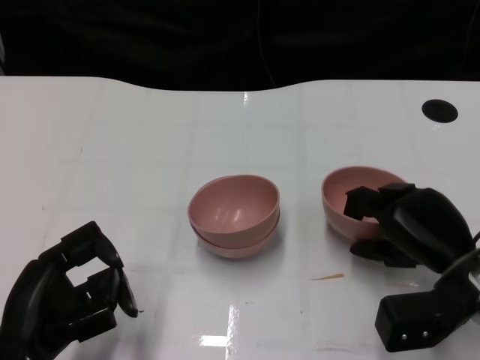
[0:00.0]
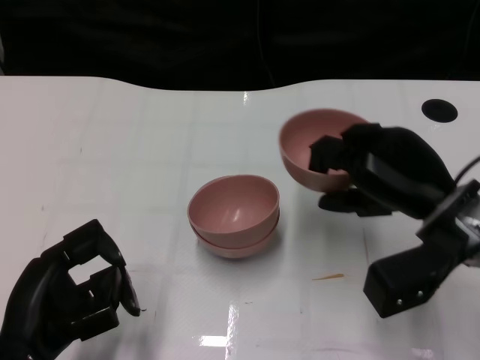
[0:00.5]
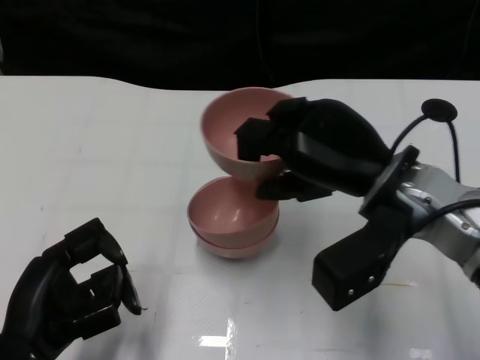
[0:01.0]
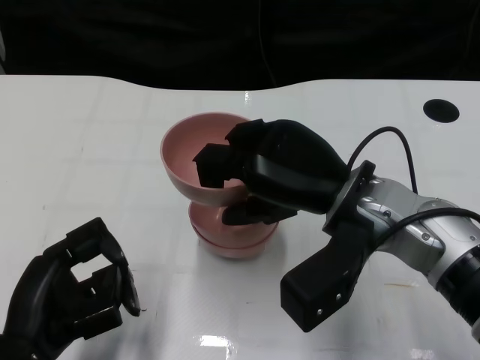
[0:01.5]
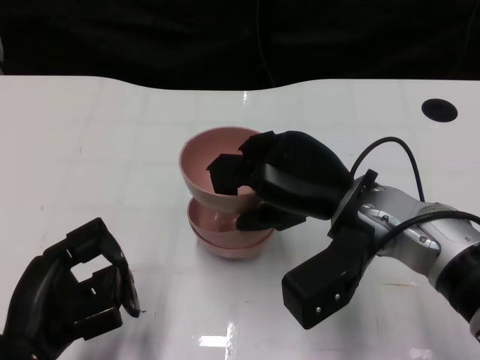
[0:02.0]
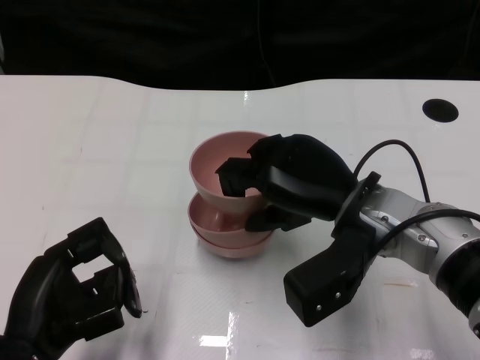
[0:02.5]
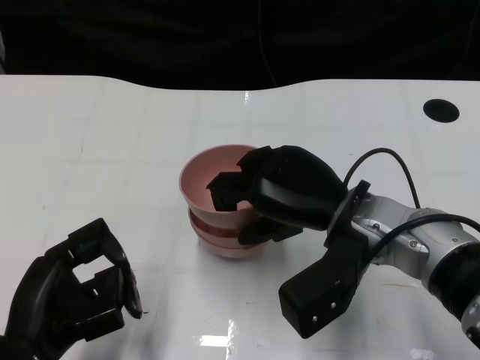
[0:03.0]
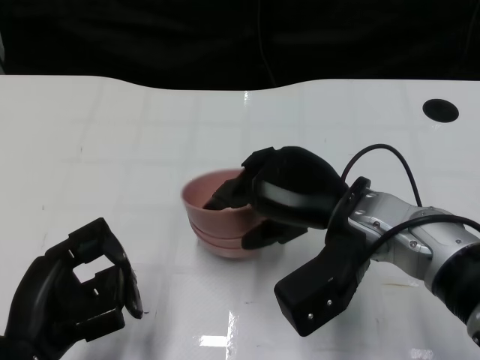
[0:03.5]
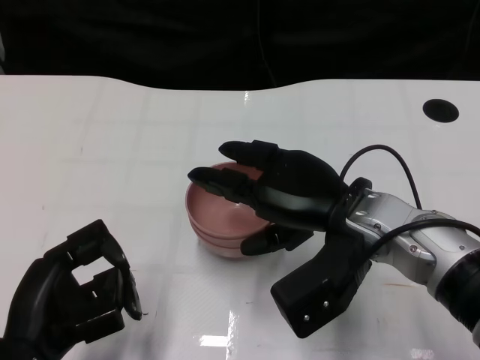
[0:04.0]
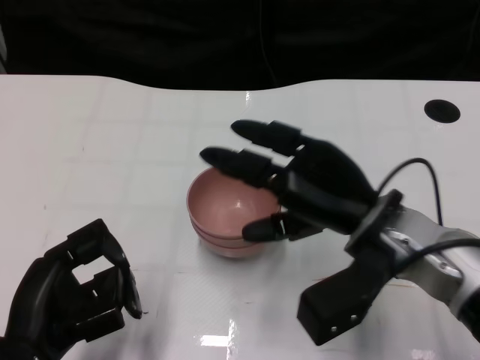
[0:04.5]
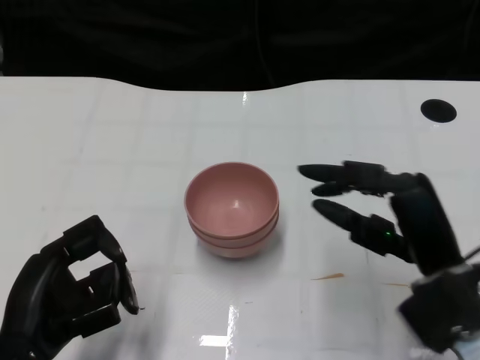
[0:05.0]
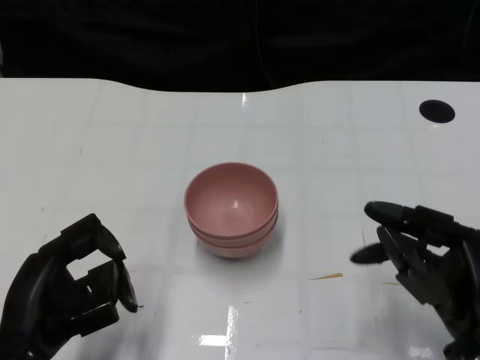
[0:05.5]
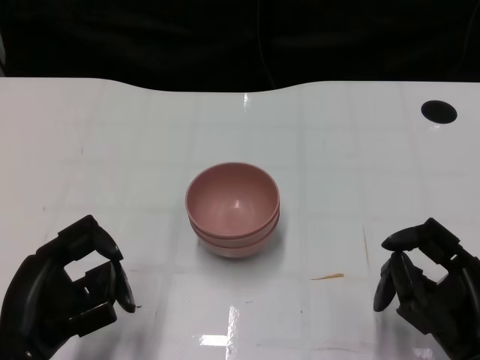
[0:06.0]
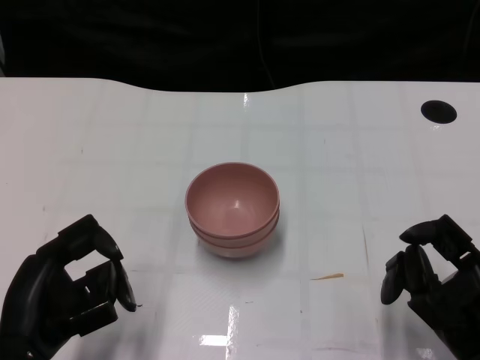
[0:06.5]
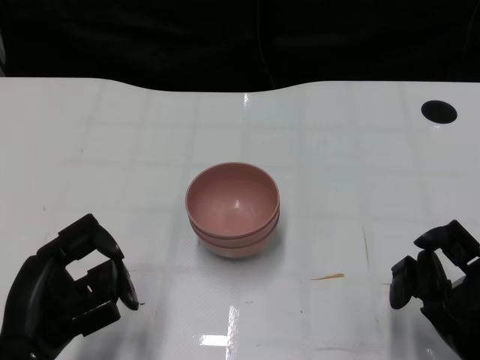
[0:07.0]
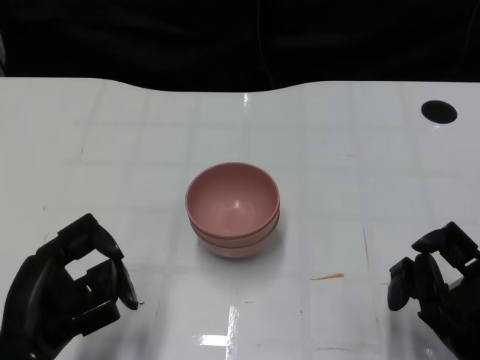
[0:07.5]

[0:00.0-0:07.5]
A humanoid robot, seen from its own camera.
Task of the whole recording: Pick up the bowl on one side of the table and place it on top of the middle bowl, then pick up the bowl on the other side of the table and place it on top of the middle bowls.
Step, 0:00.5 to 0:04.0: Place the bowl on the right onto the bowl in the middle with right gripper.
0:00.0 to 0:02.0: The right hand shifts some 15 cm to the left and upward.
0:02.0 to 0:04.0: There are only small adjustments of the hands.
0:04.0 to 0:05.5: The right hand travels to the right, backward and downward by approximately 15 cm.
